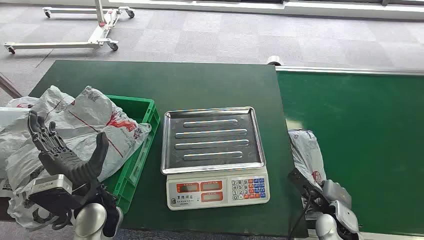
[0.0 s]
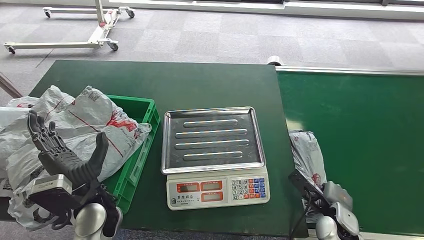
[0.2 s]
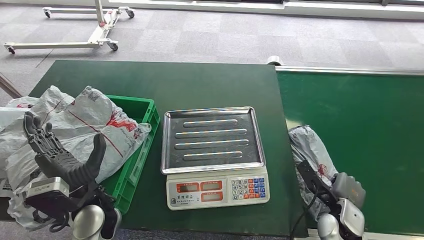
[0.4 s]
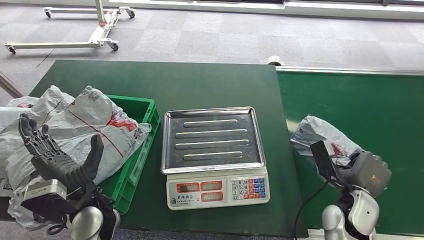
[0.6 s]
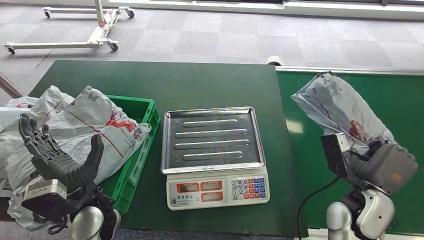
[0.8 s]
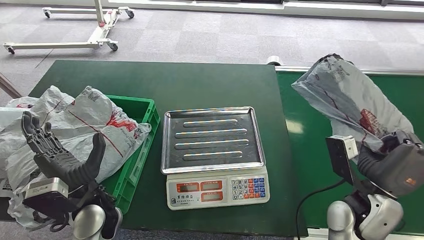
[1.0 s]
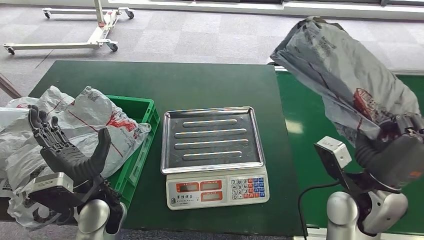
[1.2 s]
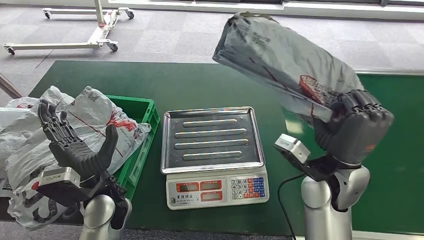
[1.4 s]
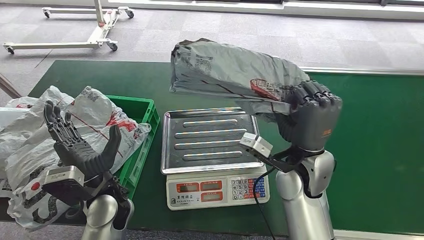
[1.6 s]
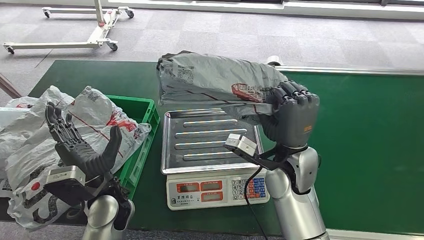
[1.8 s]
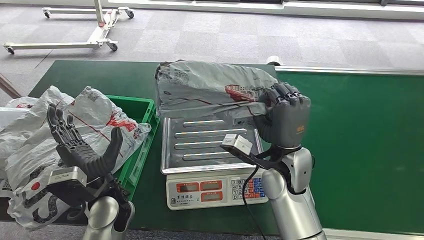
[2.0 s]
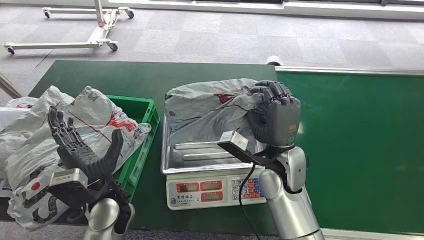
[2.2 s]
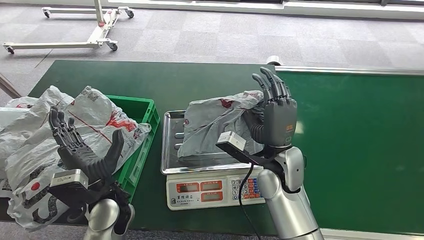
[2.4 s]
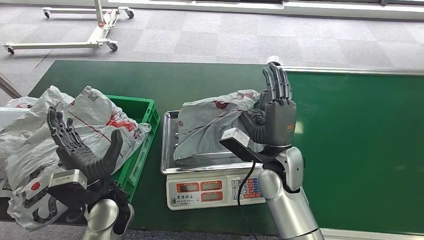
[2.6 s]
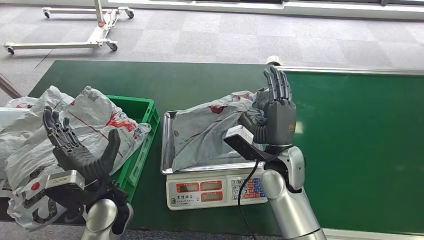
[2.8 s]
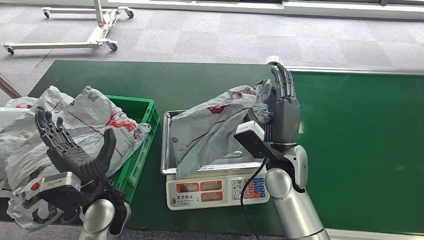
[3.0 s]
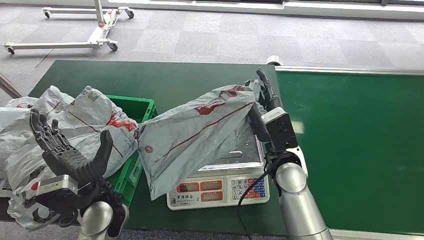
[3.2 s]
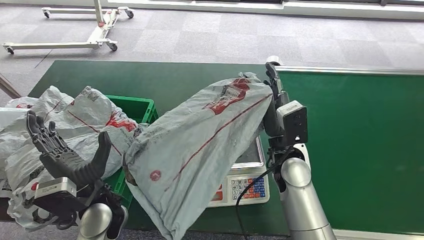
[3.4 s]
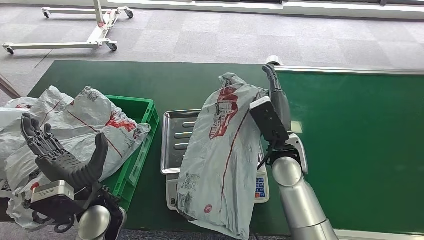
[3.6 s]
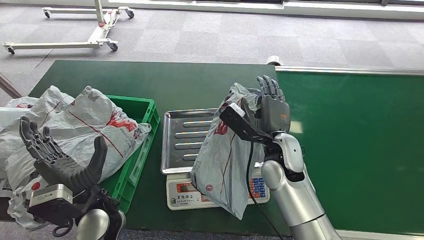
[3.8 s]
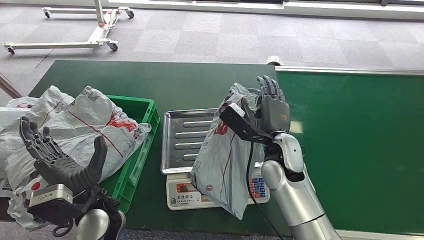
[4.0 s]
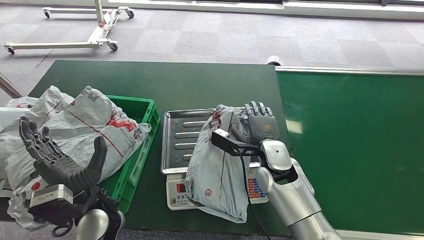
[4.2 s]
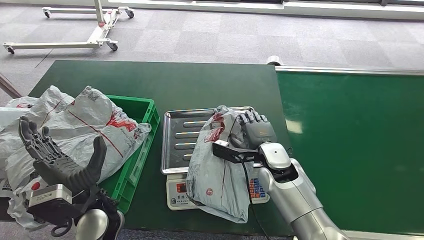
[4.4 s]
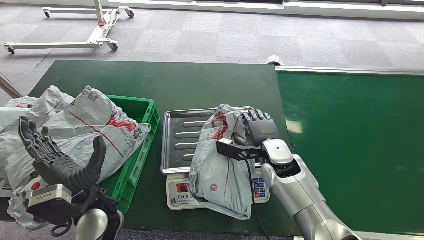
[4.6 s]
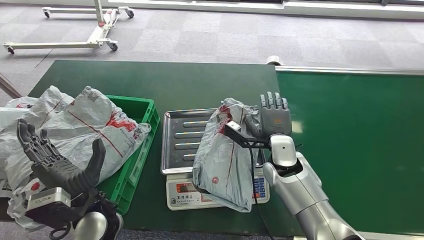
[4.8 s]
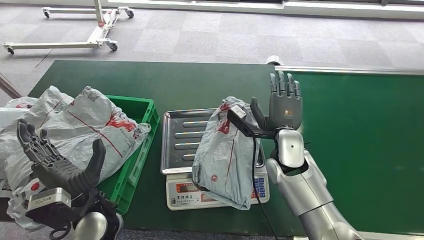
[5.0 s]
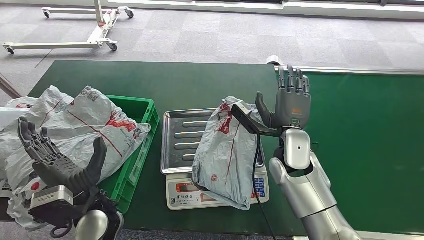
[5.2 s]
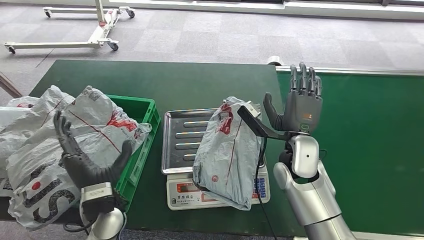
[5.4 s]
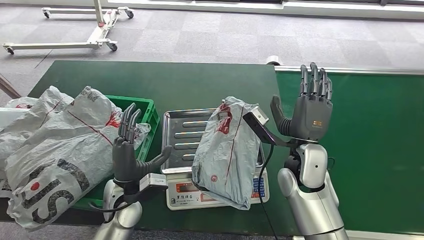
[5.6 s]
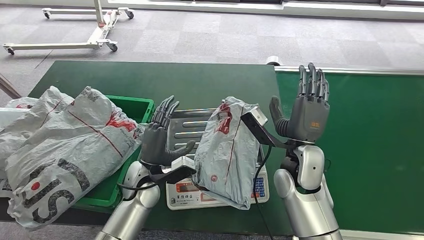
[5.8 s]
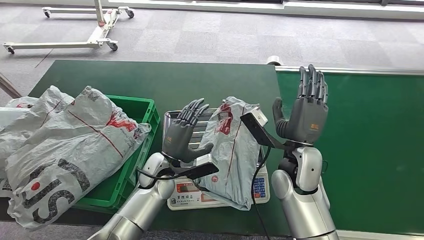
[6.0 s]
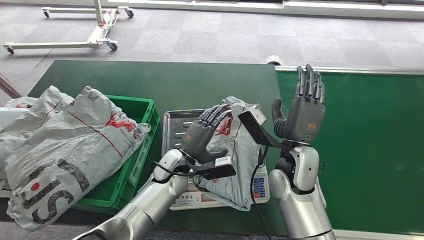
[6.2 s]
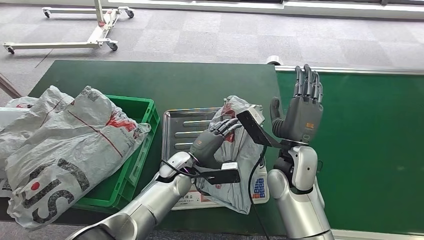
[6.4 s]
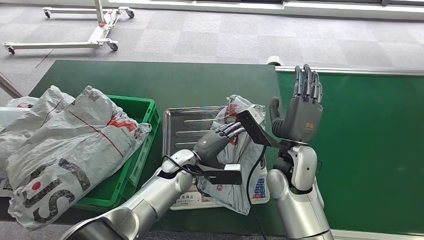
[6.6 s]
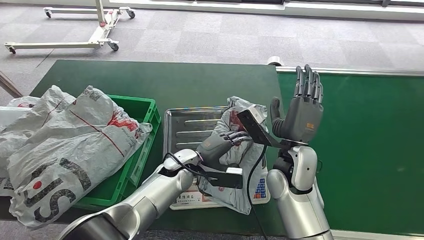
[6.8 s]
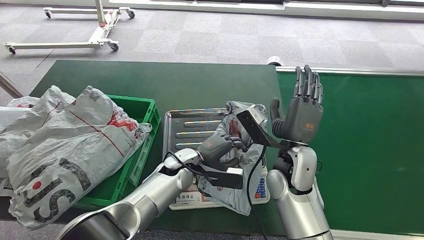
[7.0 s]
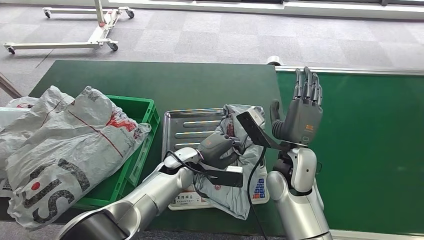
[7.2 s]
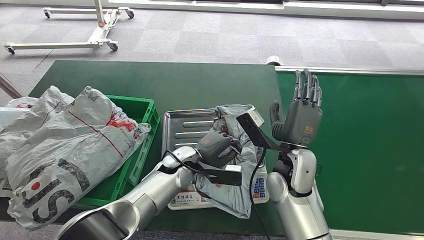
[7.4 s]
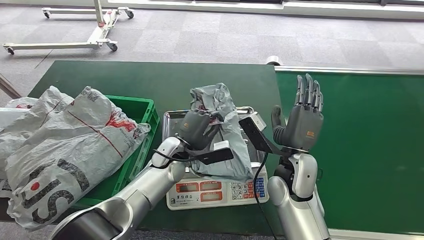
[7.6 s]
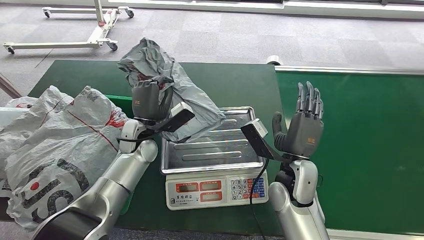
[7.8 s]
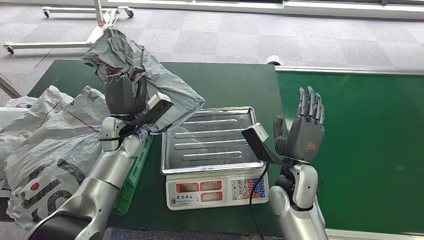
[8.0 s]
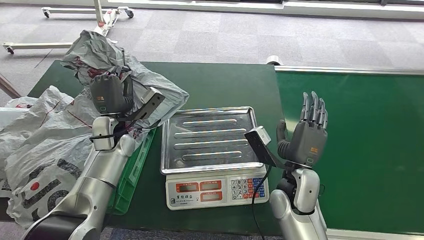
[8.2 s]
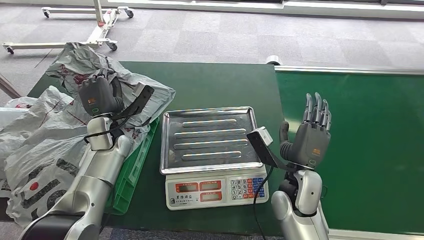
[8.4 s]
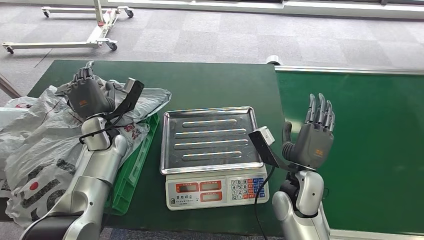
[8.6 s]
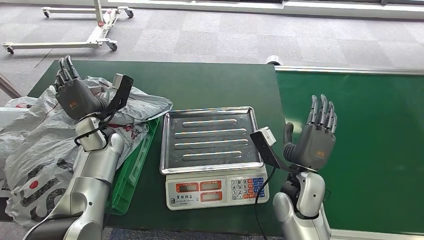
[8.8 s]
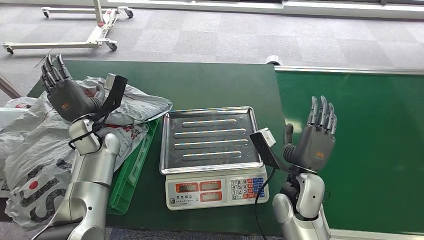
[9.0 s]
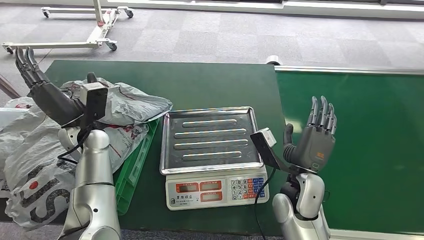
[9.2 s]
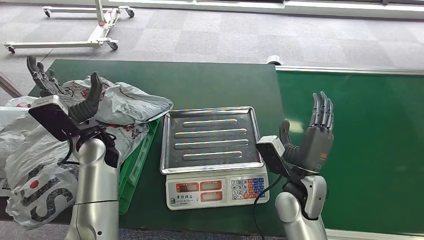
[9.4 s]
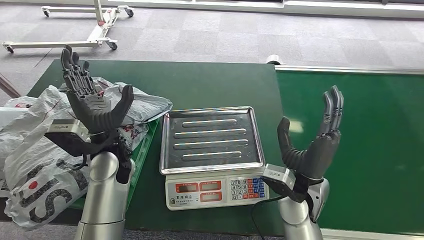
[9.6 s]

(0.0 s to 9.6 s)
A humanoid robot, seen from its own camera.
Step, 0.0 s - 1.4 s: Pick up the package from the conveyor belt.
Step, 1.6 s - 5.6 s: Place the package onto the inbound machine.
Step, 6.0 s - 8.0 s: Pick up the package from the inbound machine.
Step, 8.2 s - 9.6 s: Place the package into the parcel locker.
4.8 s - 6.4 s: The left hand is displaced to the right, forward and downward by some 20 cm; the right hand travels upward and backward by about 10 cm.
